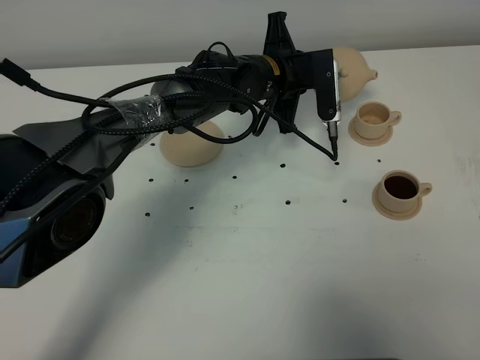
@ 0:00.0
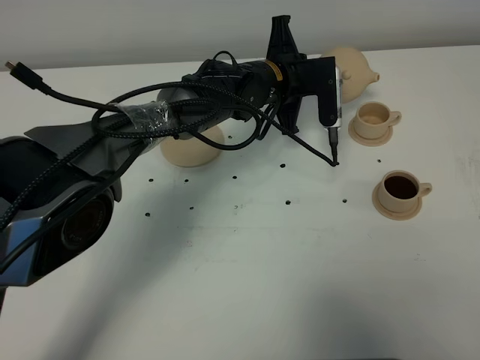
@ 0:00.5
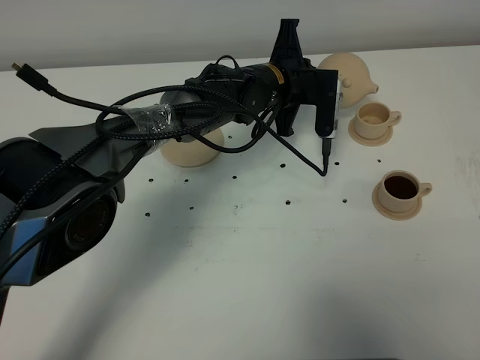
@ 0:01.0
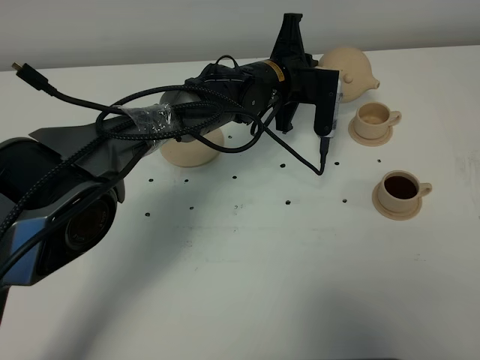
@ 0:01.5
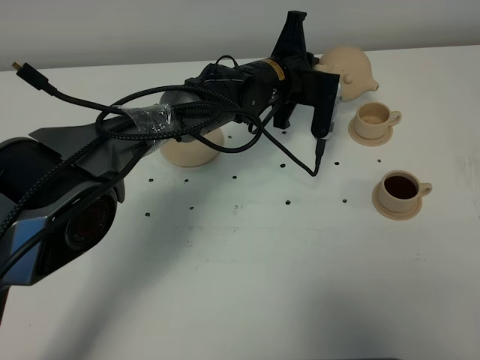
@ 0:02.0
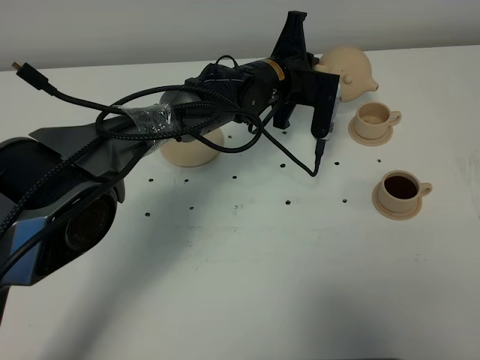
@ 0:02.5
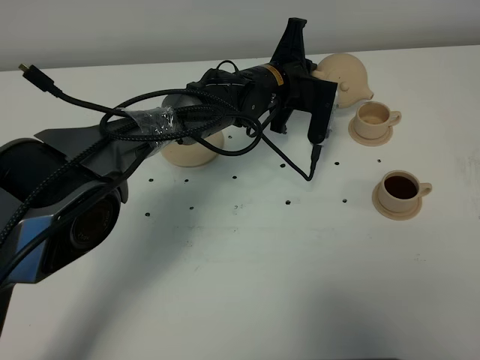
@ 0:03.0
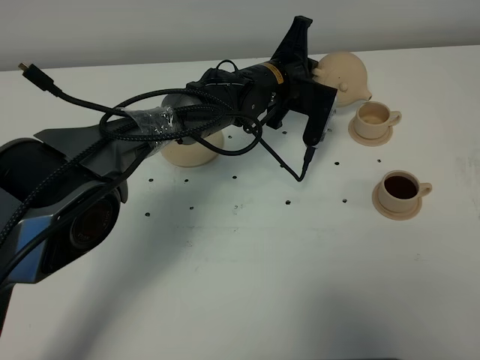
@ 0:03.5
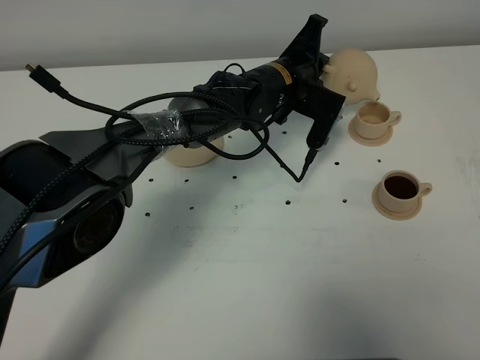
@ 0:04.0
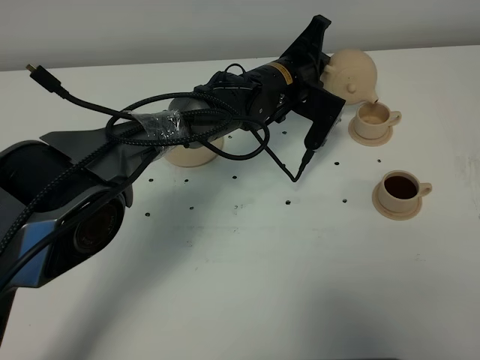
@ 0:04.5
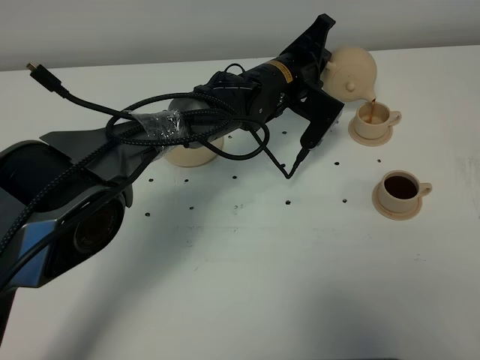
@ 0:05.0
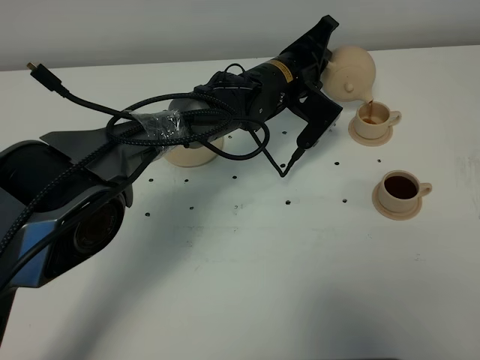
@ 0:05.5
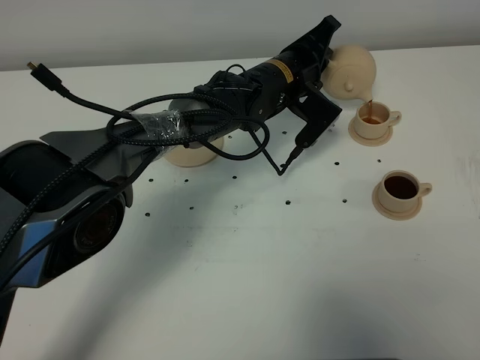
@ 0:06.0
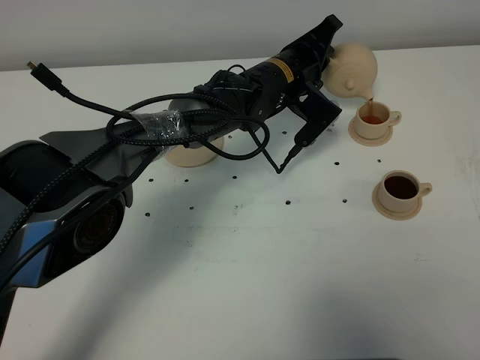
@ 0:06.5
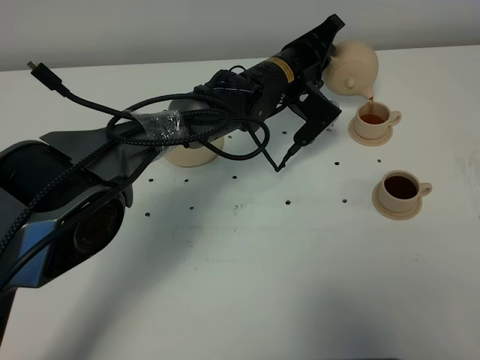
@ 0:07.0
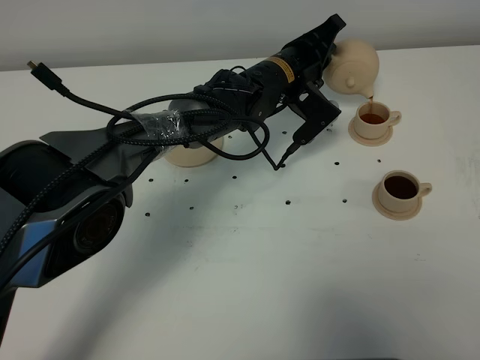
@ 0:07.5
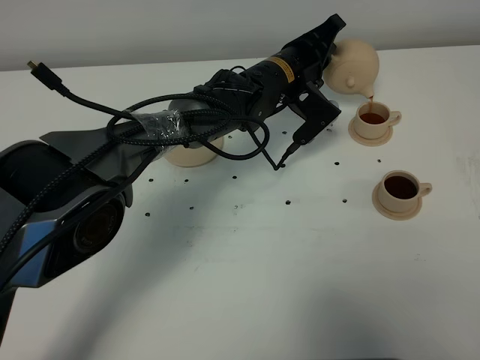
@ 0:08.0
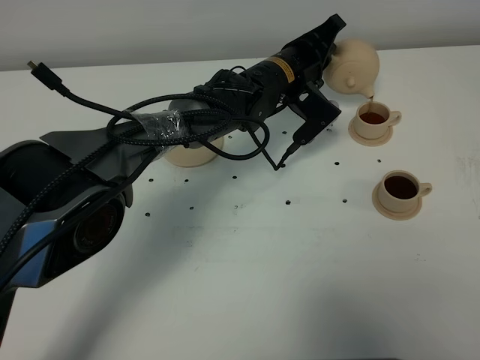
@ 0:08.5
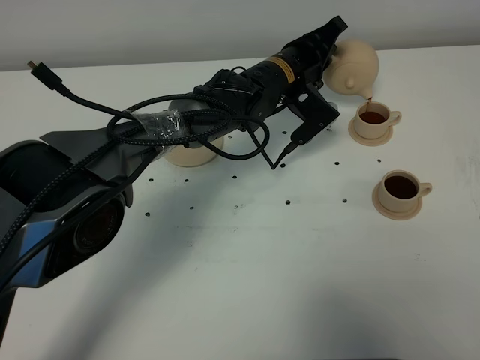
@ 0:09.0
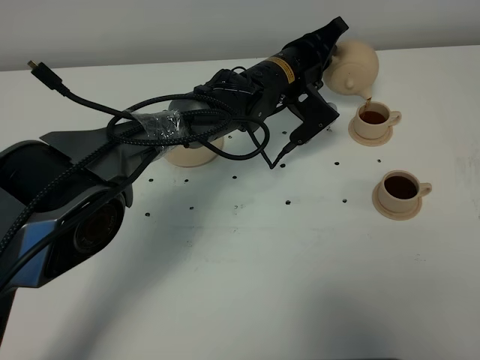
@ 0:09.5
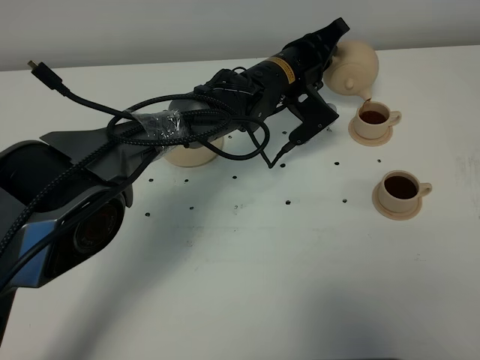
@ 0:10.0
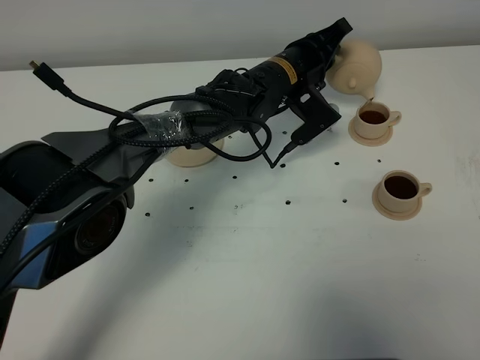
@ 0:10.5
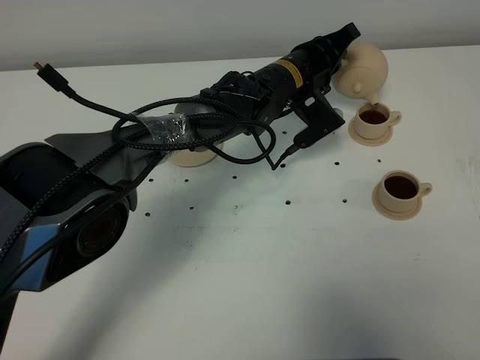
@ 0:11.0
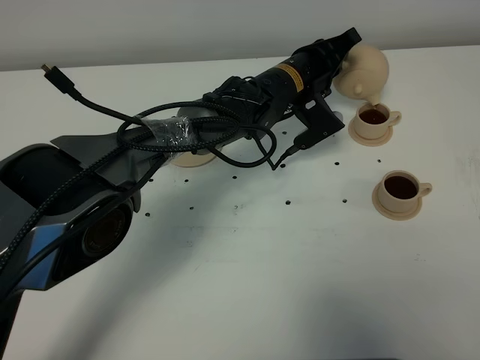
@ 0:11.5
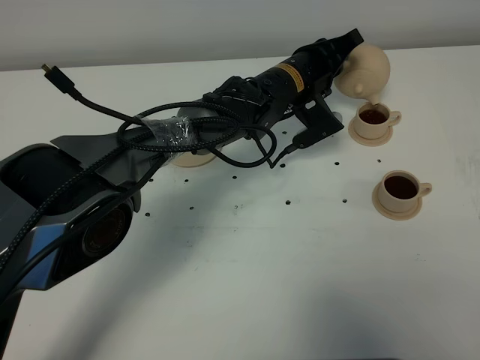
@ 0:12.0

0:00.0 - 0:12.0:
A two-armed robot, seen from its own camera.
Task of the whole recording: grasp the brown teapot and pour the tea into the two brown teacups one by one, put the brown teapot back in its original place.
0:00.0 - 0:02.0: The grippers stay close to where they were, moving slightly.
0:02.0 - 0:04.0: The grippers move only a little.
0:04.0 - 0:06.0: The grippers move only a little.
0:06.0 - 0:08.0: There are only small adjustments of the grippers.
0:08.0 - 0:10.0: Both grippers stay about where they are.
0:10.0 - 0:12.0: The grippers stay close to where they were, moving slightly.

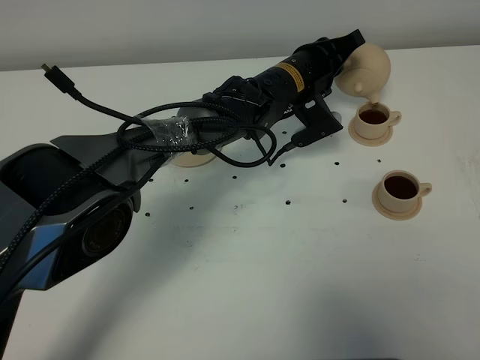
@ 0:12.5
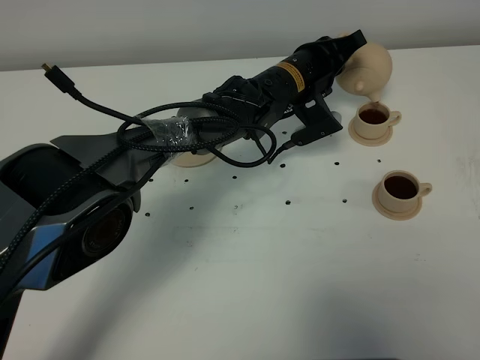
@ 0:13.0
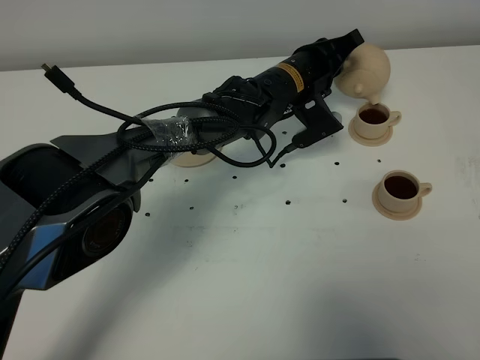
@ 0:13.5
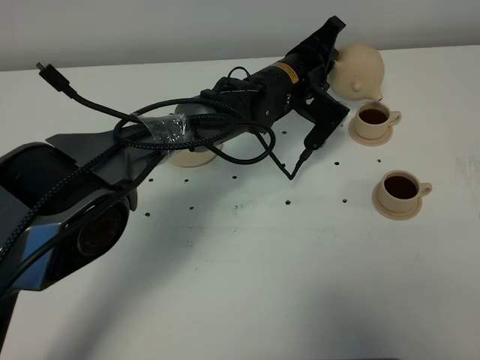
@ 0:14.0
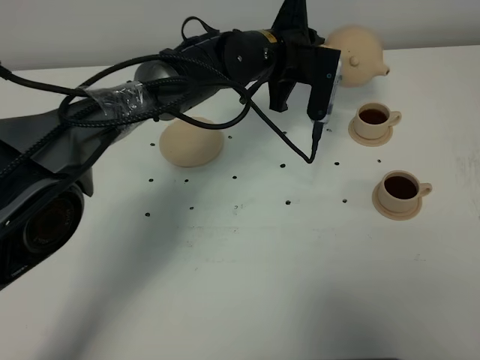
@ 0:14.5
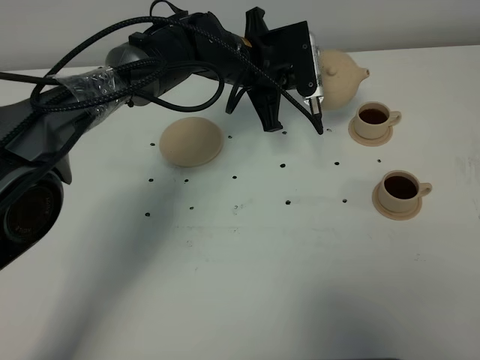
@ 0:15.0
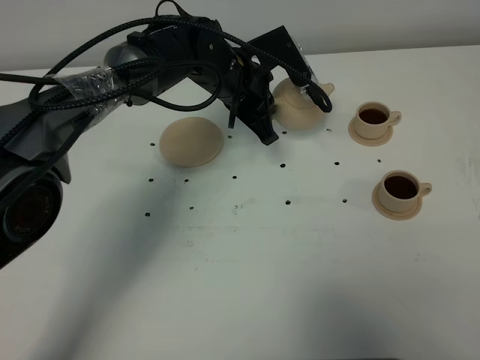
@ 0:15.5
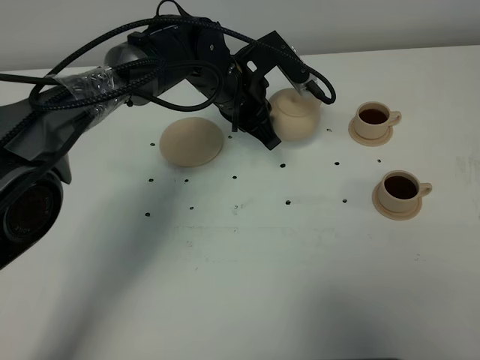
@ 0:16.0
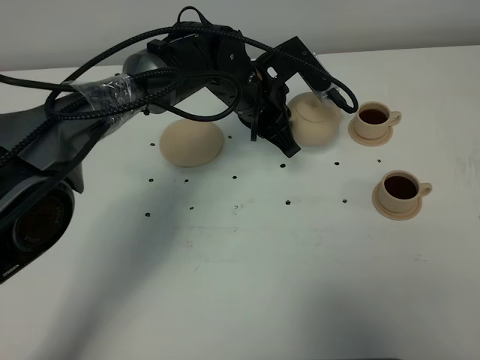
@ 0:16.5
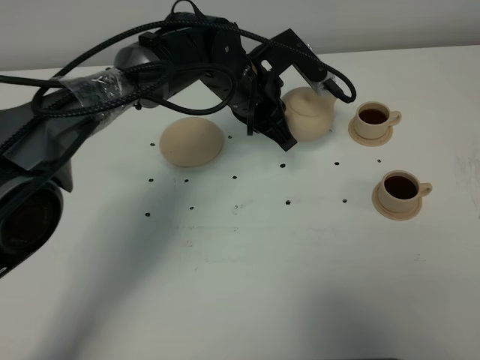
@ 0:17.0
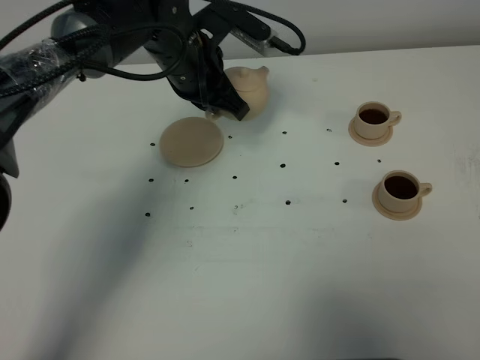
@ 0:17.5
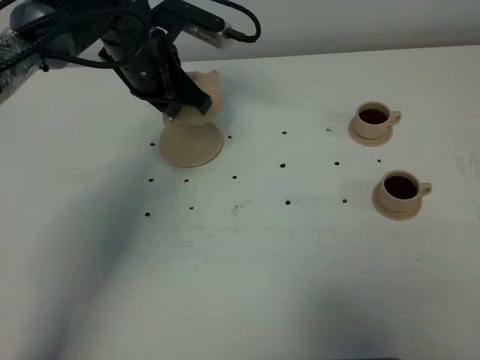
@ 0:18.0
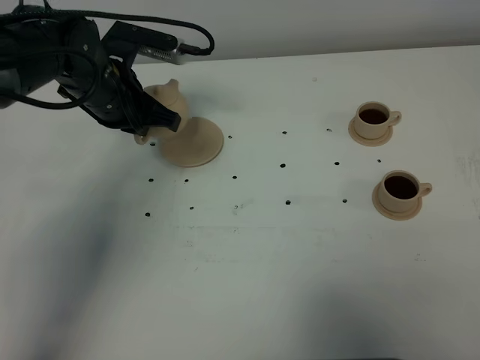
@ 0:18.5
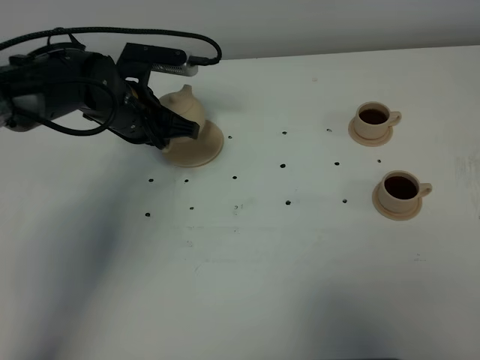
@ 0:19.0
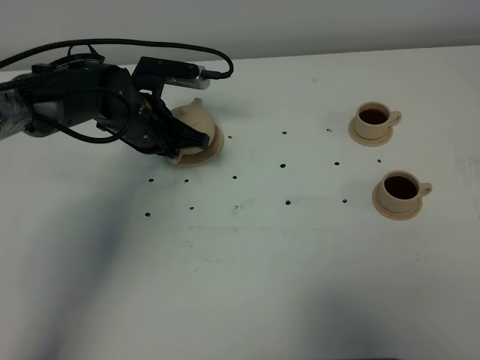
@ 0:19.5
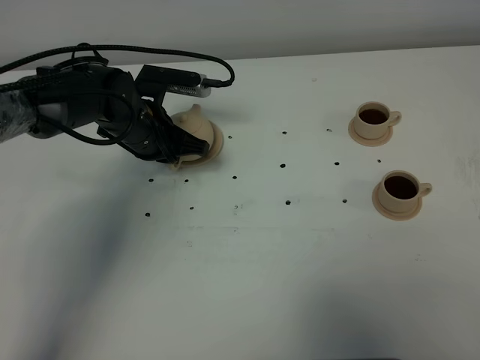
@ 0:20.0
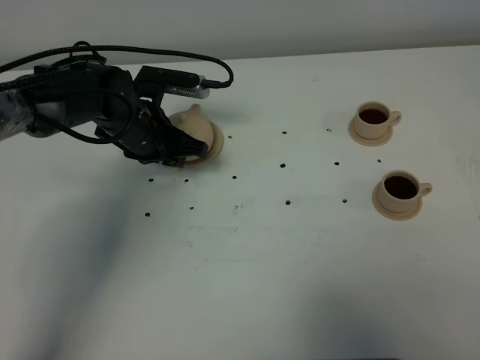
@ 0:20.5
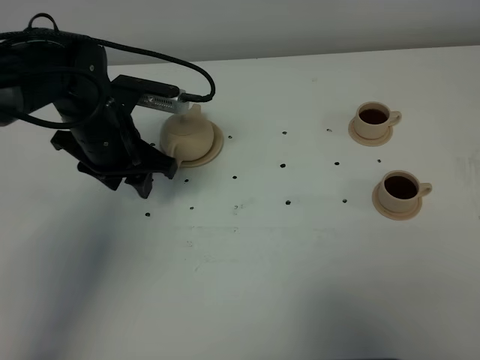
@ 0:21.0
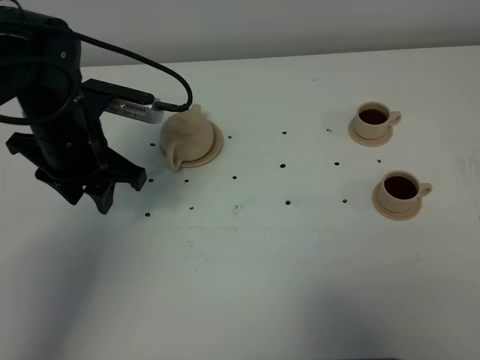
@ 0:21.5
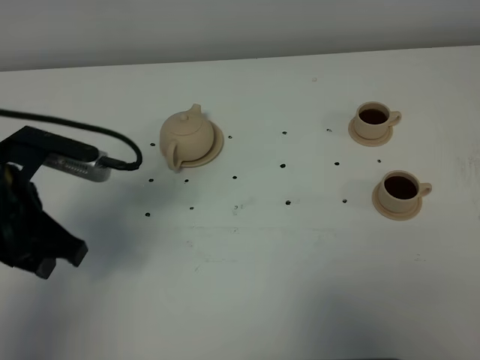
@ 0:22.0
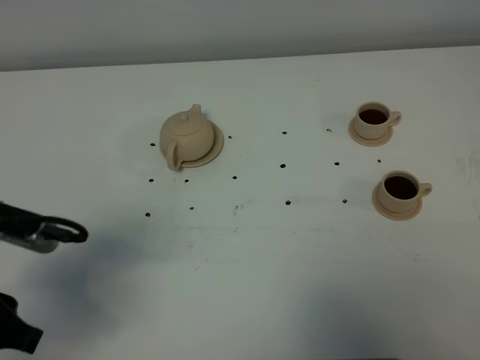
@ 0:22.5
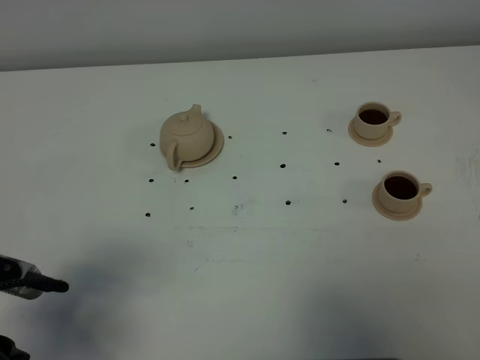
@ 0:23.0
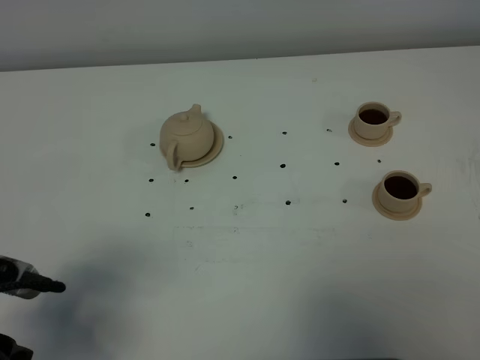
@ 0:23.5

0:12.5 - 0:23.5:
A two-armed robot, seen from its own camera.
Task of the whole recording: grasp the brown teapot and pour the tea into the two brown teacups one by one, put the brown teapot back in its original place.
0:12.5 - 0:14.5: The left gripper shifts approximately 5 cm upward.
0:14.5 - 0:16.0: The left gripper moves about 5 cm.
0:16.0 - 0:18.0: The left gripper goes about 10 cm to the left and upward.
0:18.0 - 0:20.0: The left gripper goes about 10 cm downward.
0:20.0 - 0:21.5: The left gripper moves upward and backward, some 10 cm, and opens.
0:21.5 - 0:23.5: The left gripper travels backward by roughly 25 cm.

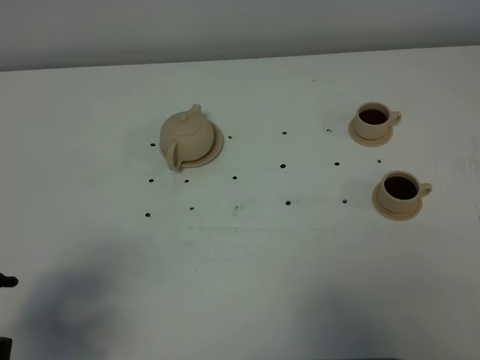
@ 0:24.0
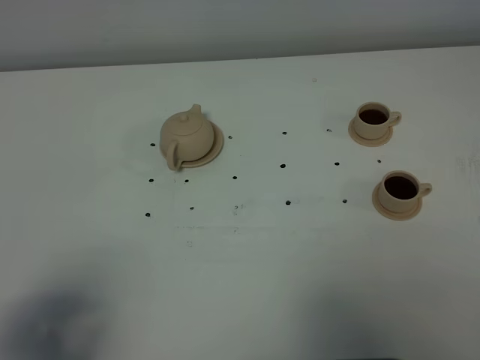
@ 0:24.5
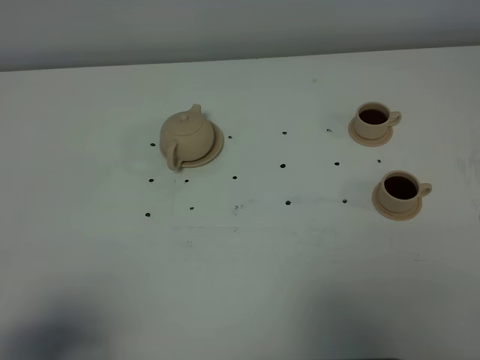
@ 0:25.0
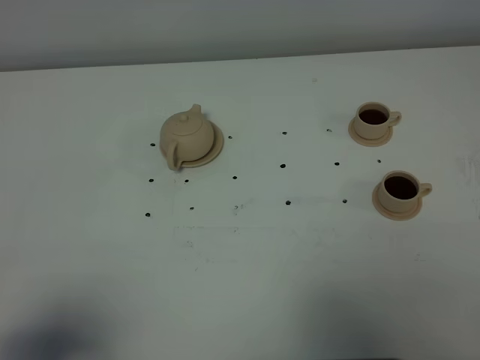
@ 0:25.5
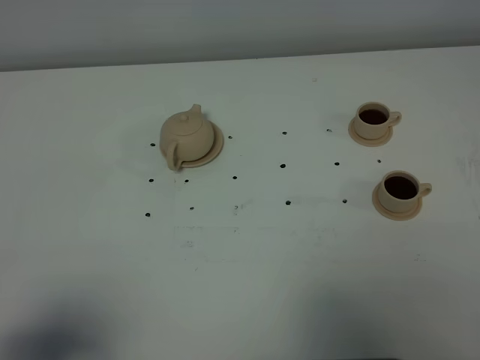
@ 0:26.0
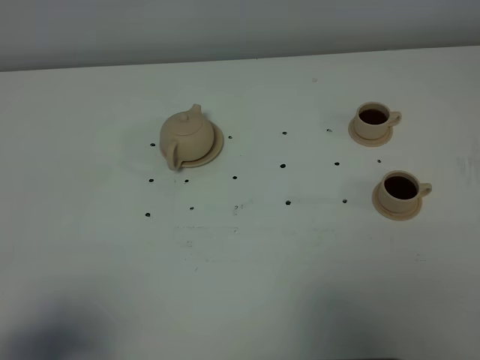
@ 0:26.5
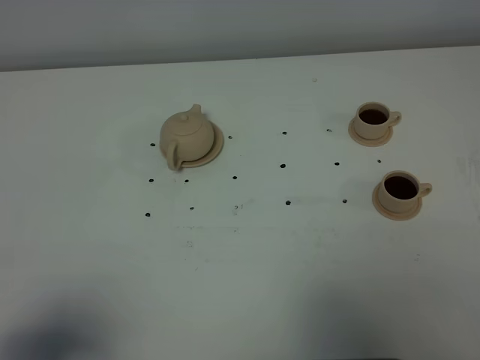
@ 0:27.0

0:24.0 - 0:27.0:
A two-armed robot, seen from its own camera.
Task of the whole recording: grasp the brown teapot and pour the tea into the two brown teacups one by one, put the brown teapot back in its original place.
0:24.0 - 0:25.5: The left gripper is displaced backward by some 5 cm.
0:25.5 - 0:27.0: Neither gripper changes place.
